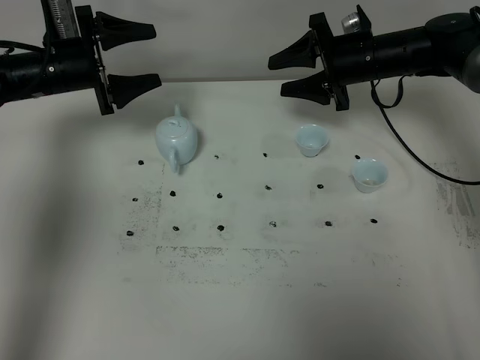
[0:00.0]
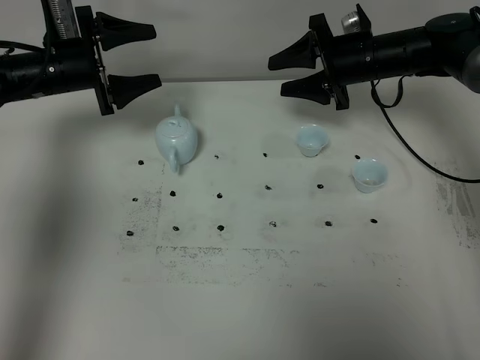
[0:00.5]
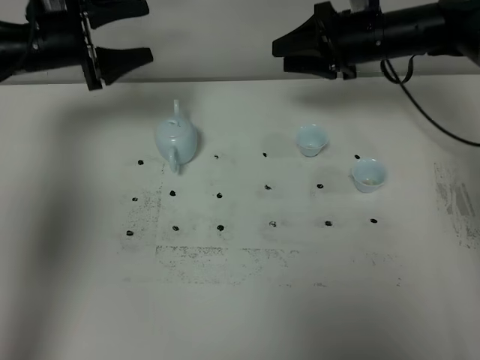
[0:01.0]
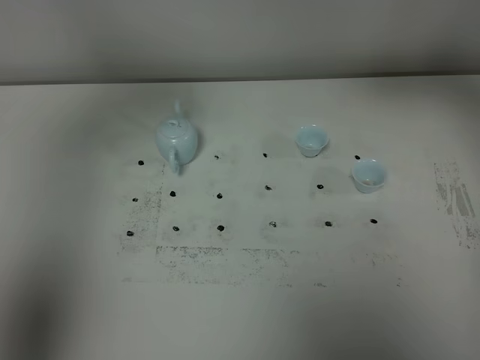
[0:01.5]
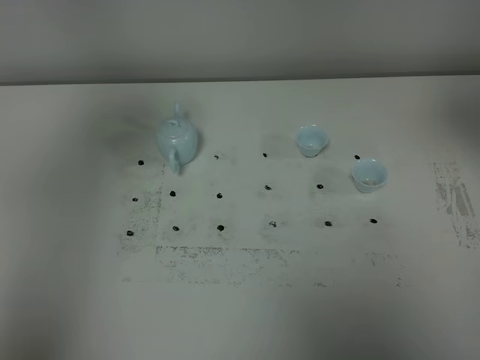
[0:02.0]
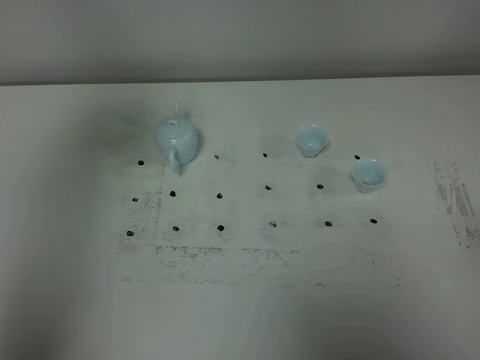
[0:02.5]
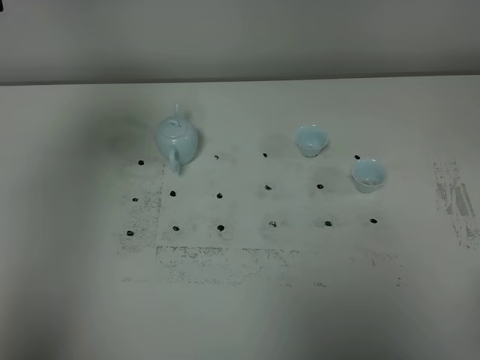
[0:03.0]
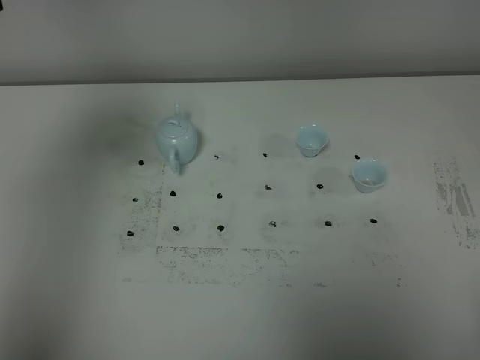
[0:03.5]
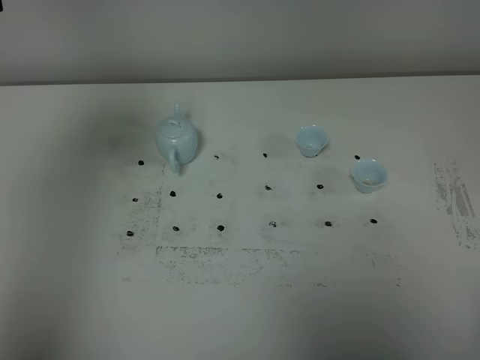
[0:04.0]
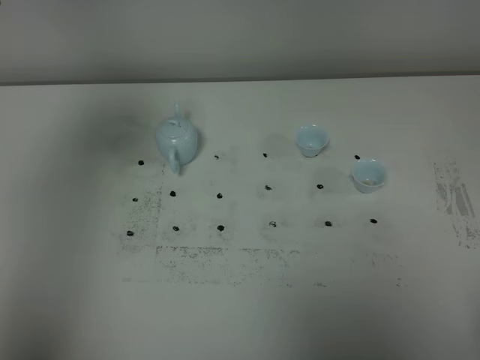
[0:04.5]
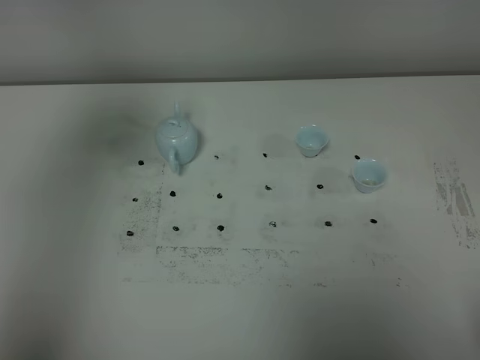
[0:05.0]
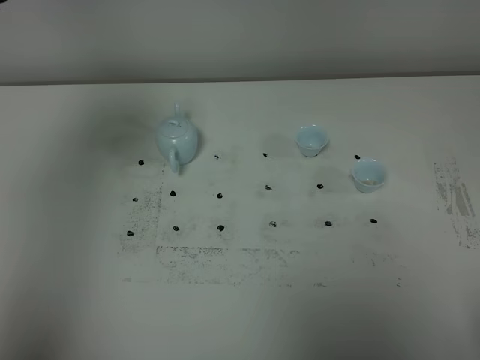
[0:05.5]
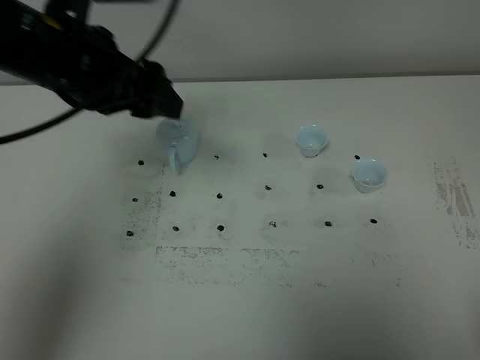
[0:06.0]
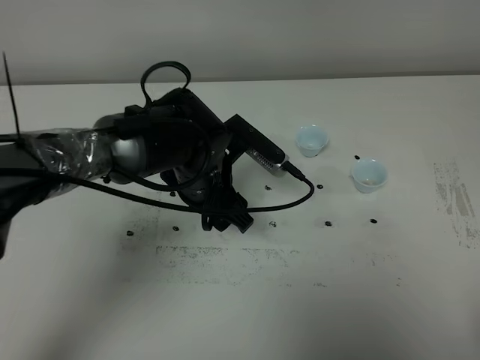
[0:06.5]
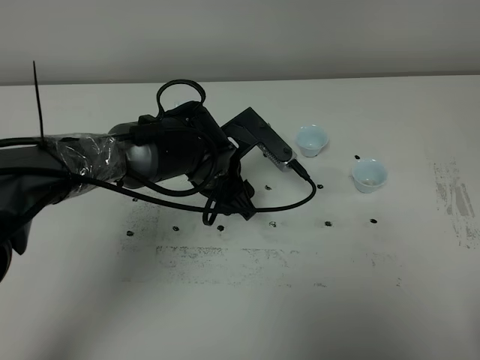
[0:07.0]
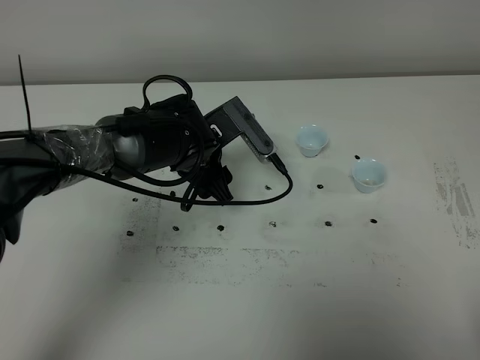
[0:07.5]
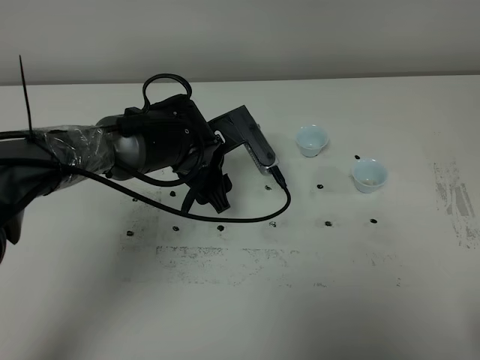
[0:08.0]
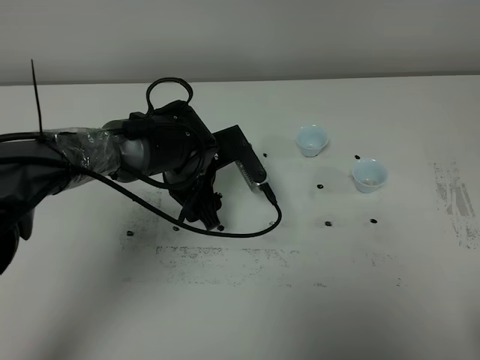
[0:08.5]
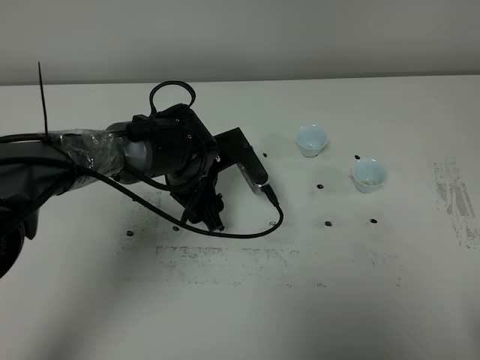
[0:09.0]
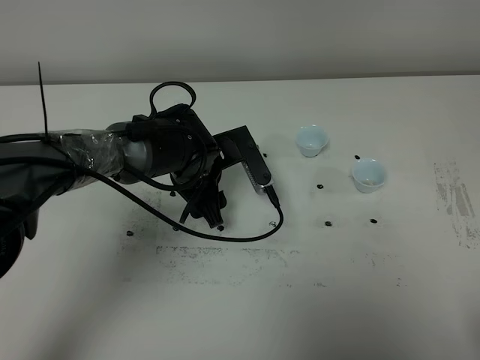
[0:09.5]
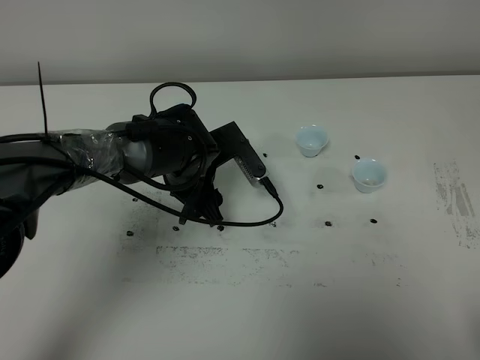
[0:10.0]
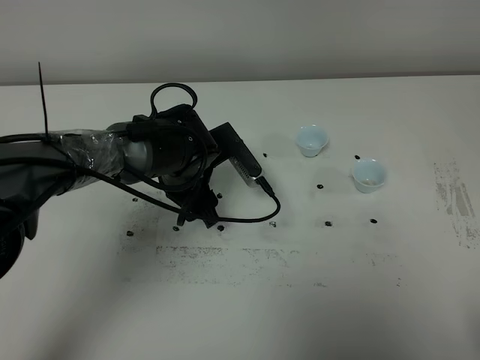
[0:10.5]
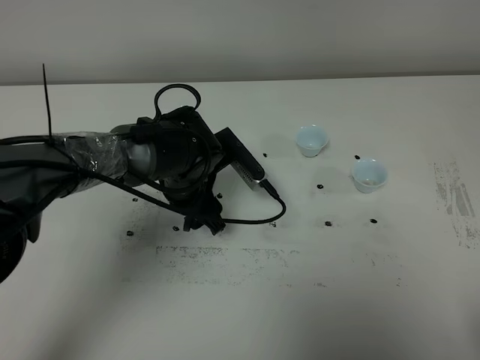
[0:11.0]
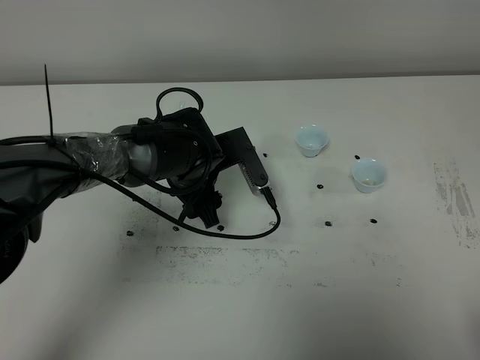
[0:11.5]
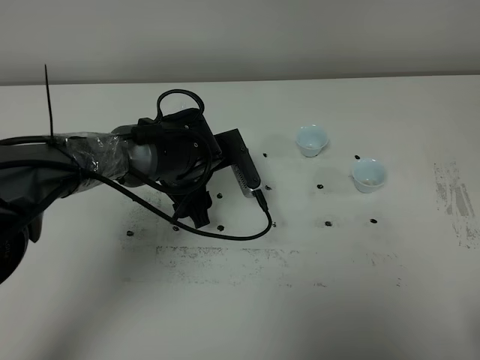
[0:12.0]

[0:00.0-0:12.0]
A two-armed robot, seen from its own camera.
Task of the whole recording: grasp the blue porcelain teapot and pour the tea into the two blue porcelain teacups one by one, put the blue porcelain teapot back in its original place.
0:00.0 to 0:02.0: The left gripper goes approximately 40 cm upward and backward. Meanwhile the right gripper heads backward and upward, covering some 40 cm.
0:04.0 to 0:06.0: The left gripper heads to the right, downward and forward, covering roughly 20 cm.
0:06.0 to 0:08.0: The left gripper shifts some 20 cm downward and to the right.
0:08.0 to 0:12.0: The grippers make only small movements.

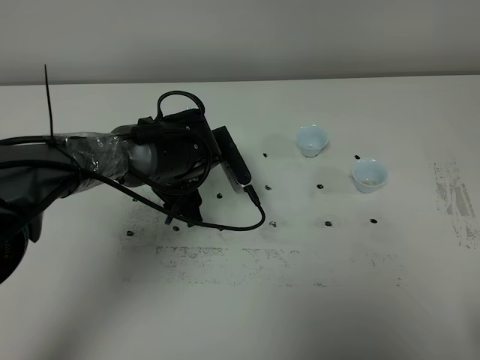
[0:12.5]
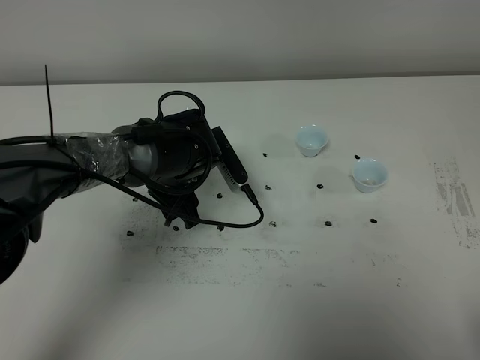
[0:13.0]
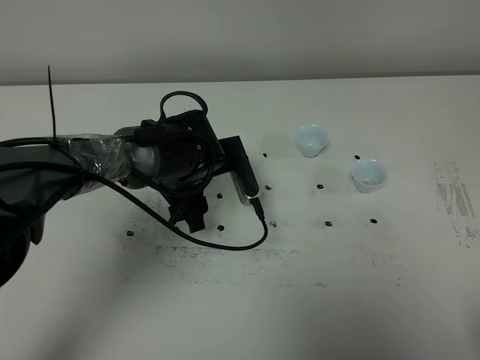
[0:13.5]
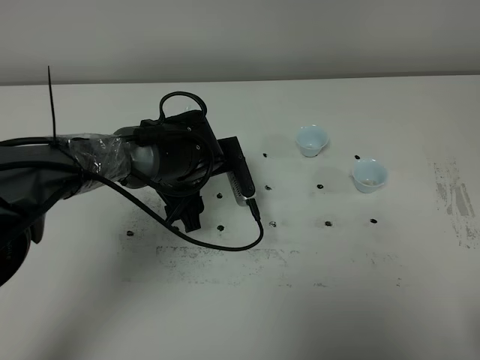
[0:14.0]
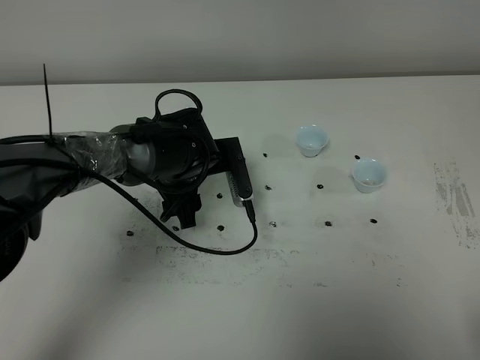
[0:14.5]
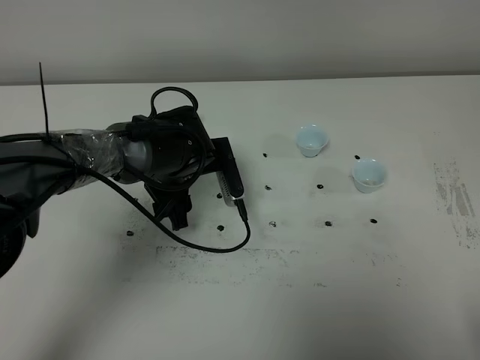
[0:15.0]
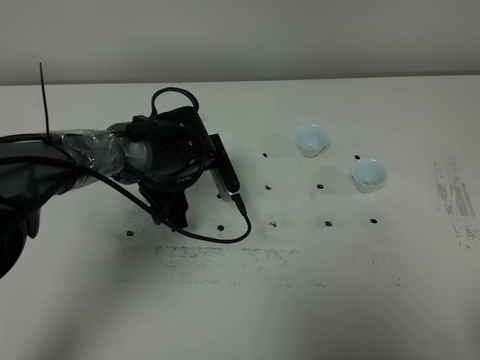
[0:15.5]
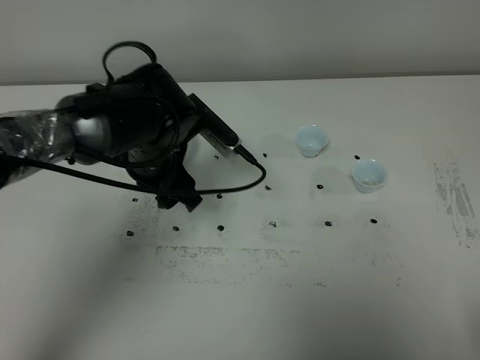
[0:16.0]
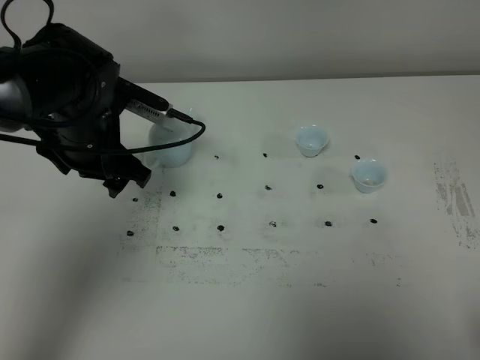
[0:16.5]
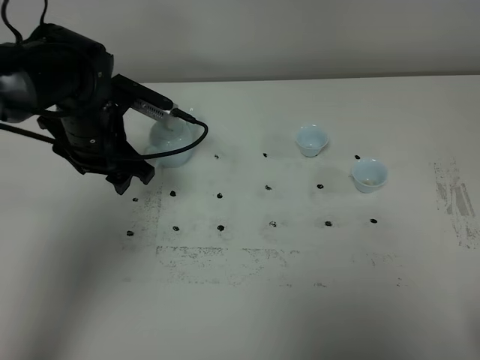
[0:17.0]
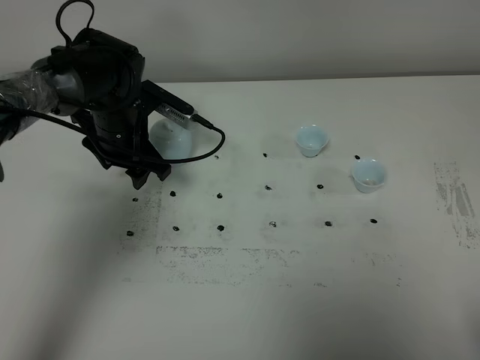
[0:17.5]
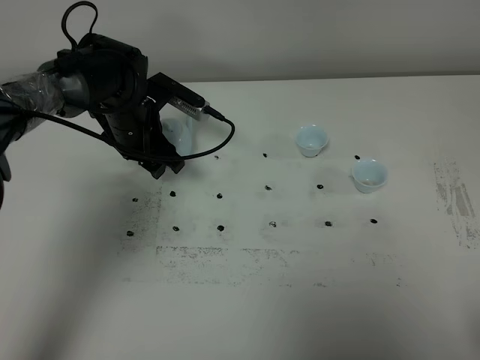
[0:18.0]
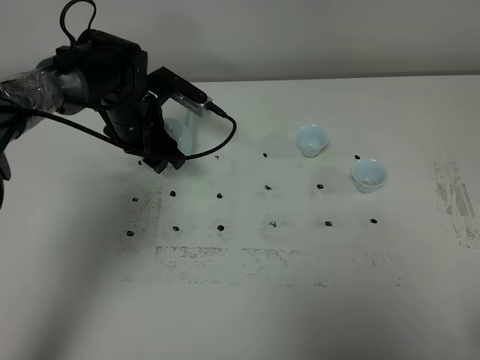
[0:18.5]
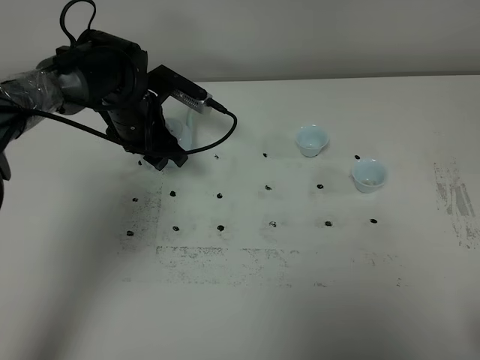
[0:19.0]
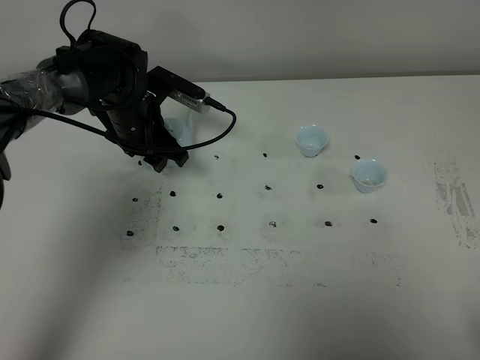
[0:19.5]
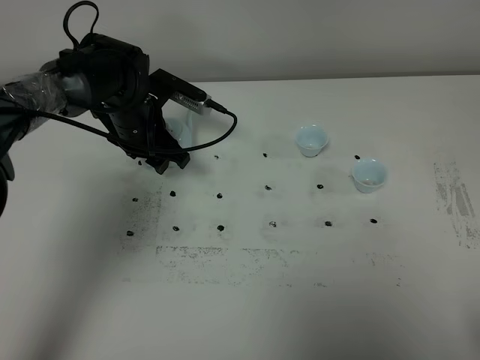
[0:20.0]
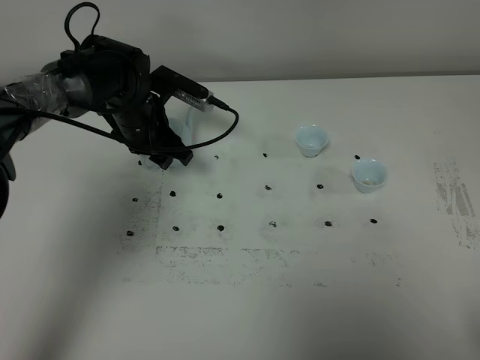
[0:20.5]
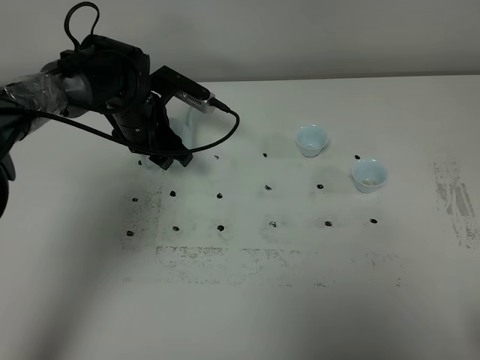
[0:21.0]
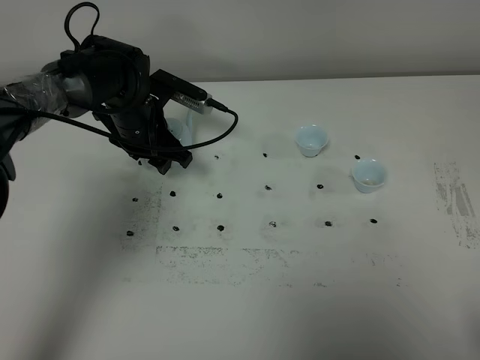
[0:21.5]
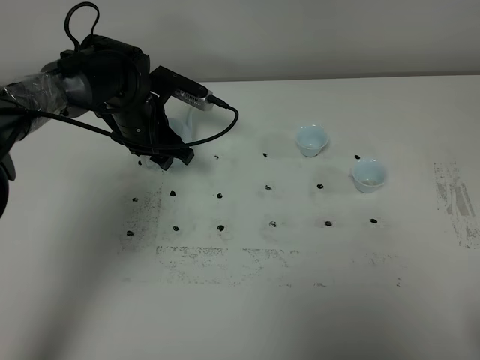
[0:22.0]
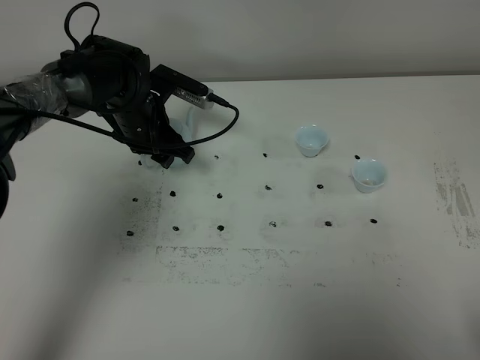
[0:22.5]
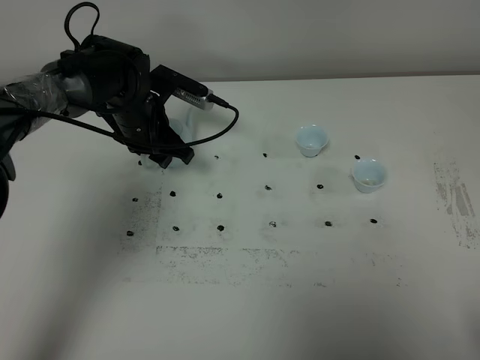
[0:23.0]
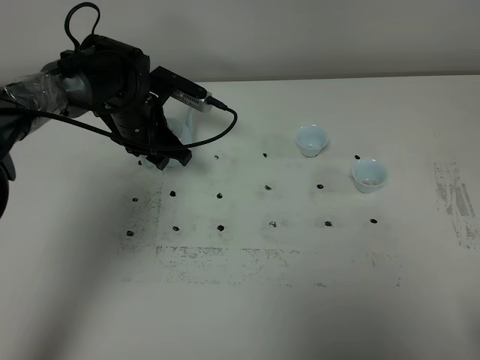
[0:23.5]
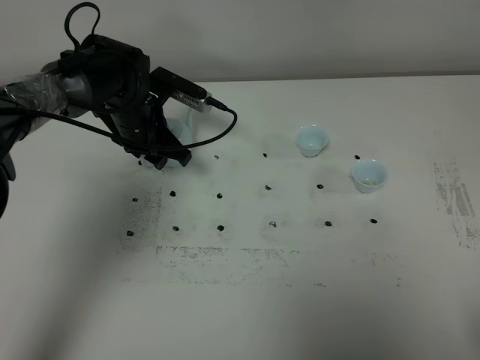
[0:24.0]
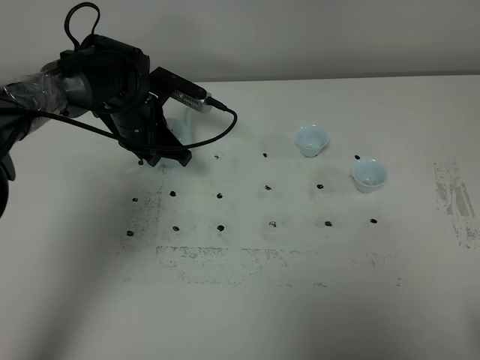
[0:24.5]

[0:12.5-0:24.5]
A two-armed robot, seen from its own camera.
Task of the whole recording: grasp the blue porcelain teapot and pour the tea into the two blue porcelain teacups one by one, put the blue porcelain teapot back in its original place.
0:12.5 to 0:14.5: The grippers move only a little.
0:14.5 to 0:16.5: The left gripper goes about 15 cm to the left and upward.
0:16.5 to 0:18.5: The left gripper goes some 10 cm forward and downward.
0:18.5 to 0:20.5: There are only small adjustments of the grippers.
0:20.5 to 0:22.5: Neither gripper changes place.
0:22.5 to 0:24.5: The left gripper closes its fingers.

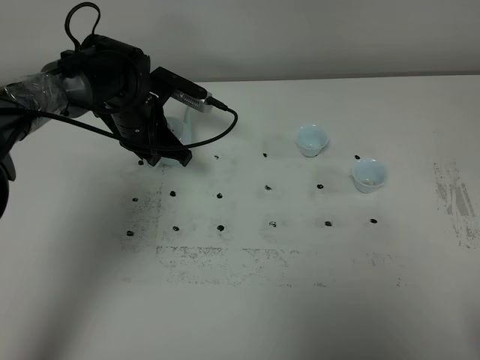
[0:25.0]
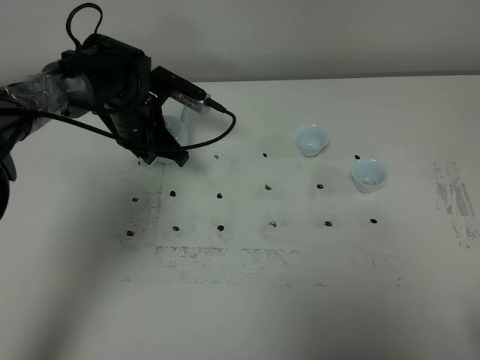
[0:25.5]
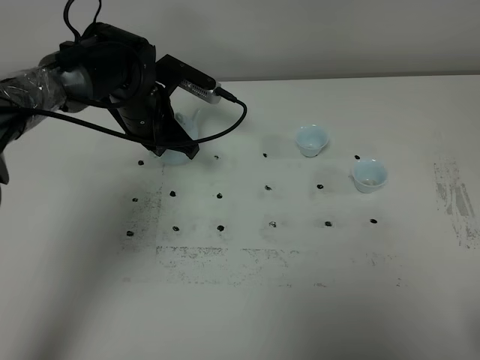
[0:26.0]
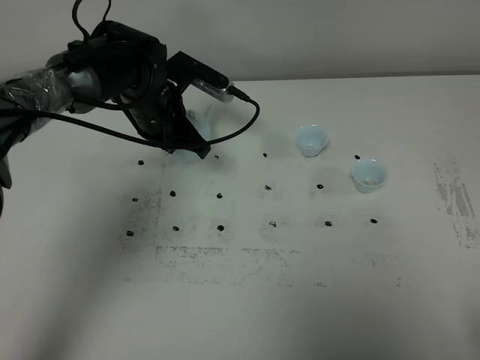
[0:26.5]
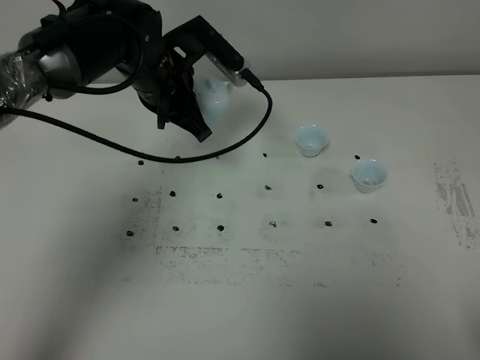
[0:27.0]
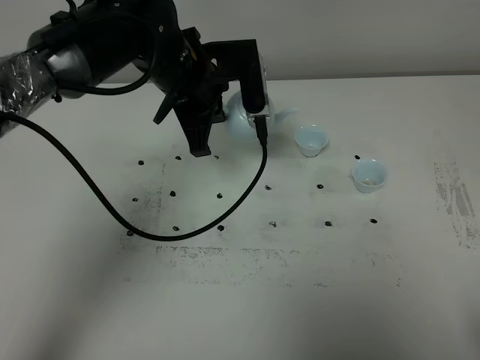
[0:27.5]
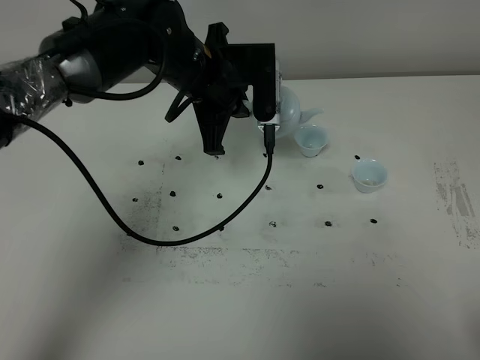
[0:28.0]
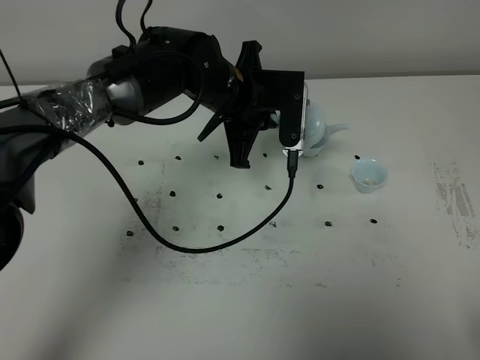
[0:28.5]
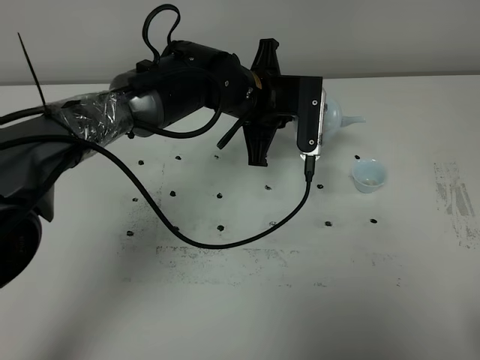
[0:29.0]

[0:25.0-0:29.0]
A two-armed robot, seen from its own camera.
Task of the whole recording: grasp the blue porcelain teapot and pour the tea into the two blue porcelain teacups one by one, put the blue porcelain teapot back in its original place.
0:25.0 to 0:27.0: The left gripper shifts roughly 10 cm upward.
0:27.0 to 0:29.0: The left gripper travels to the right by approximately 10 cm.
